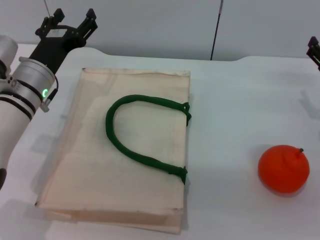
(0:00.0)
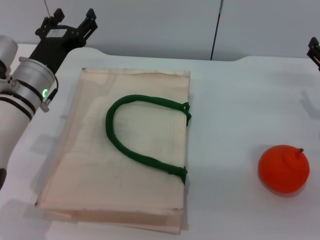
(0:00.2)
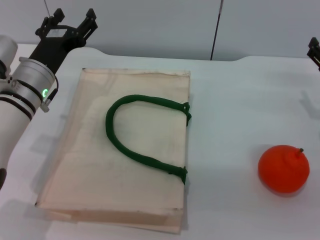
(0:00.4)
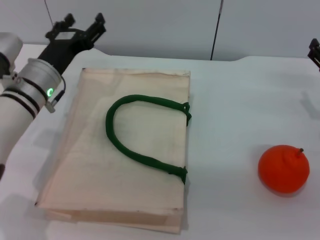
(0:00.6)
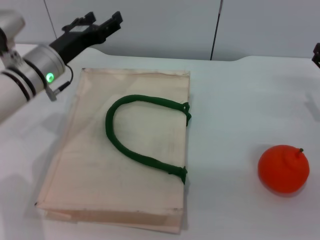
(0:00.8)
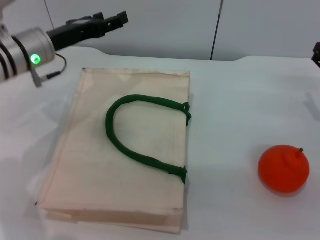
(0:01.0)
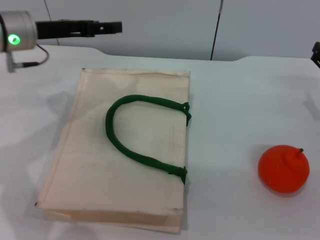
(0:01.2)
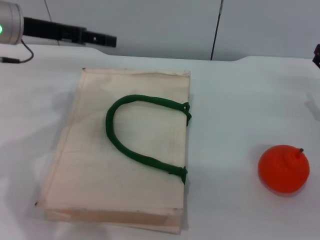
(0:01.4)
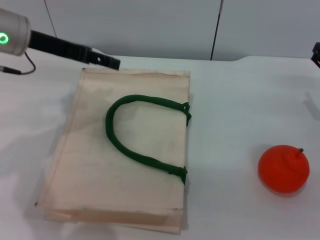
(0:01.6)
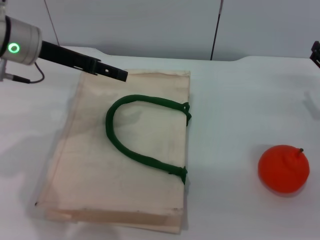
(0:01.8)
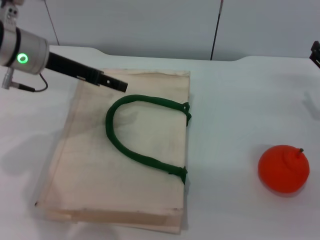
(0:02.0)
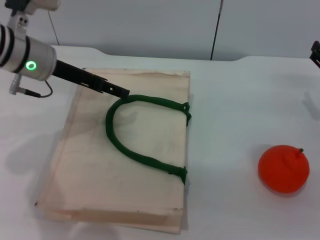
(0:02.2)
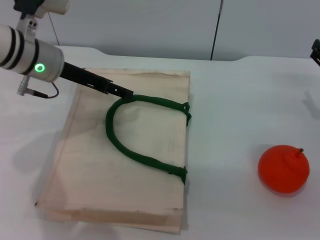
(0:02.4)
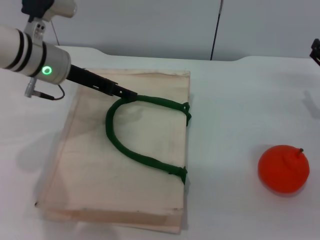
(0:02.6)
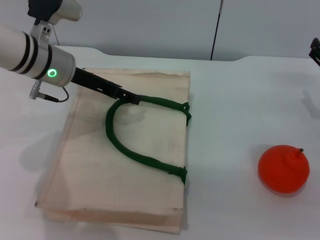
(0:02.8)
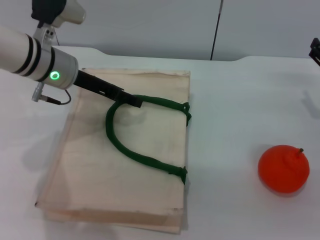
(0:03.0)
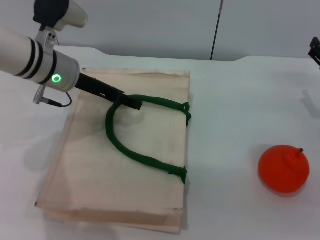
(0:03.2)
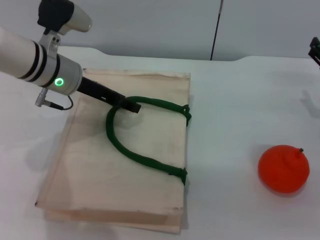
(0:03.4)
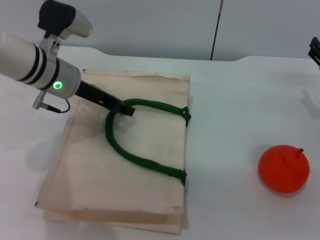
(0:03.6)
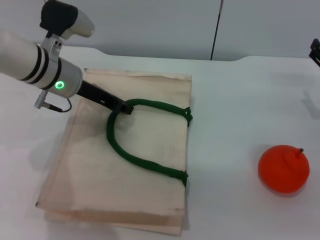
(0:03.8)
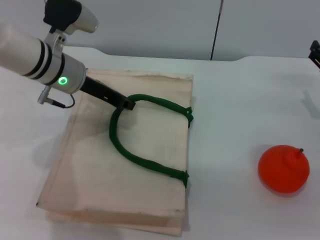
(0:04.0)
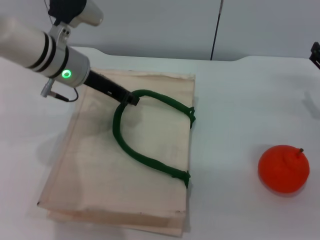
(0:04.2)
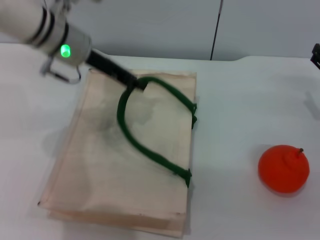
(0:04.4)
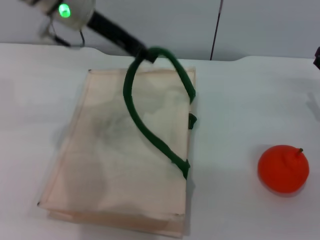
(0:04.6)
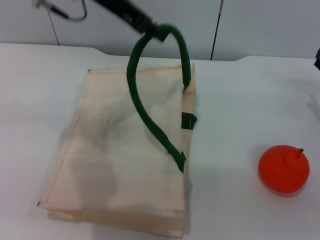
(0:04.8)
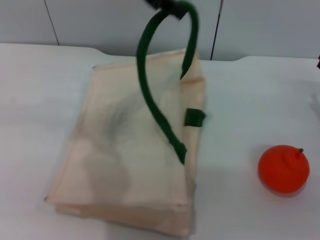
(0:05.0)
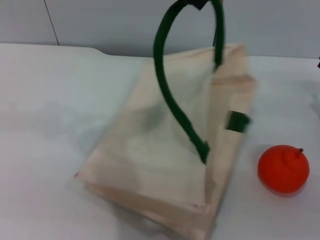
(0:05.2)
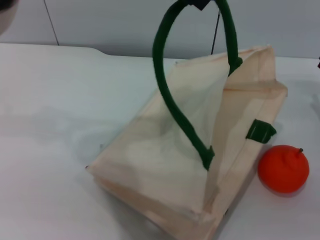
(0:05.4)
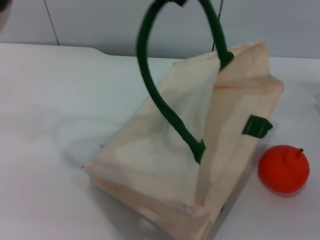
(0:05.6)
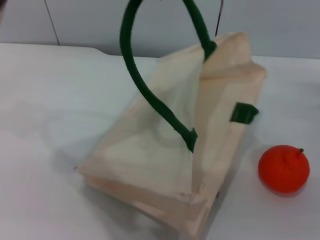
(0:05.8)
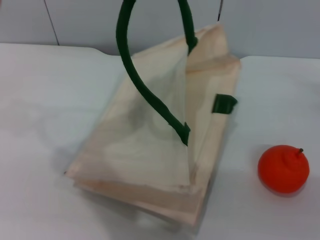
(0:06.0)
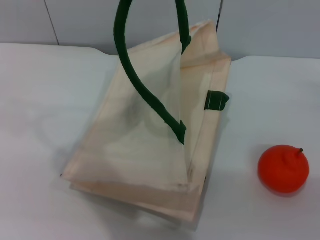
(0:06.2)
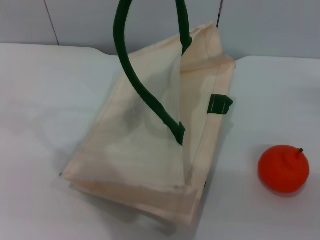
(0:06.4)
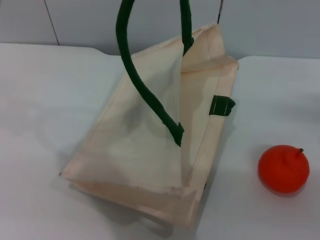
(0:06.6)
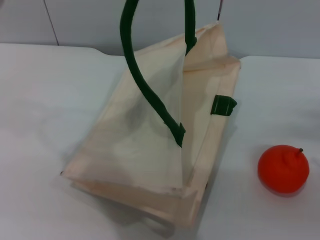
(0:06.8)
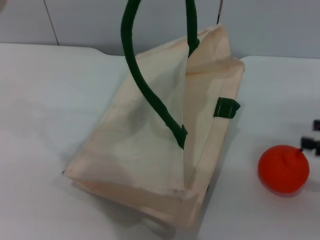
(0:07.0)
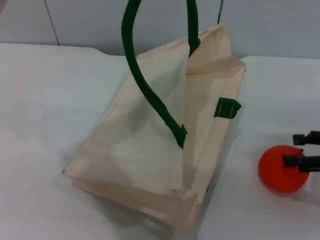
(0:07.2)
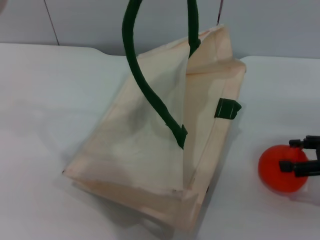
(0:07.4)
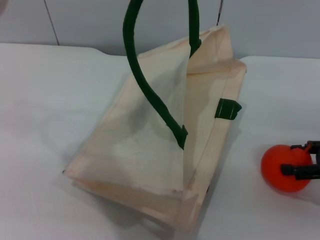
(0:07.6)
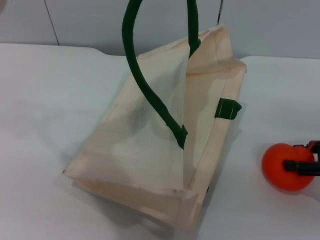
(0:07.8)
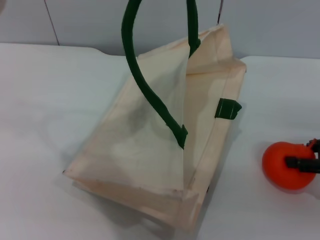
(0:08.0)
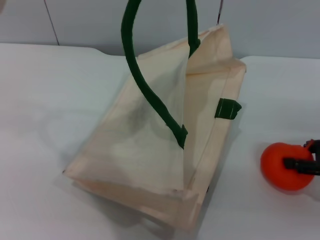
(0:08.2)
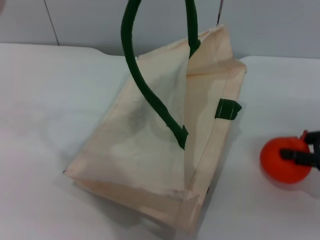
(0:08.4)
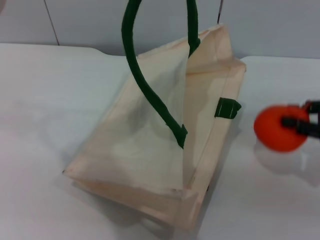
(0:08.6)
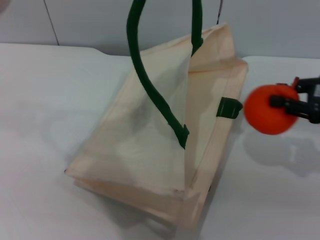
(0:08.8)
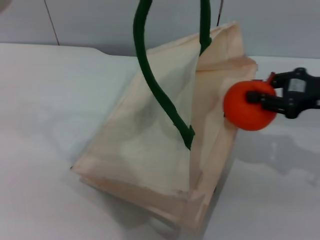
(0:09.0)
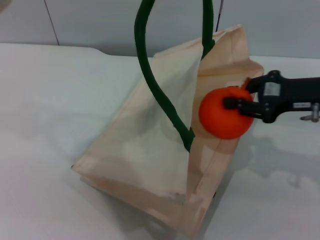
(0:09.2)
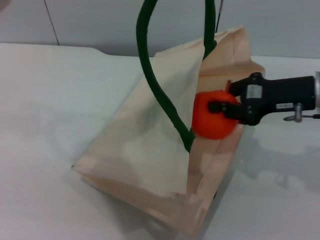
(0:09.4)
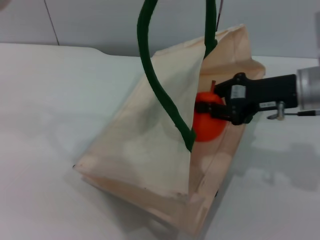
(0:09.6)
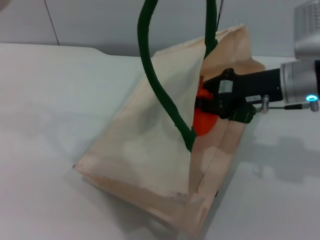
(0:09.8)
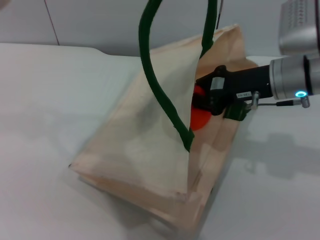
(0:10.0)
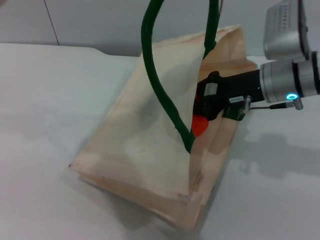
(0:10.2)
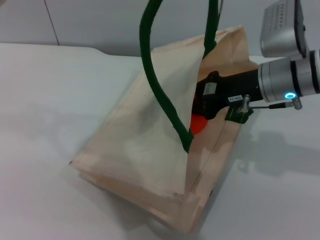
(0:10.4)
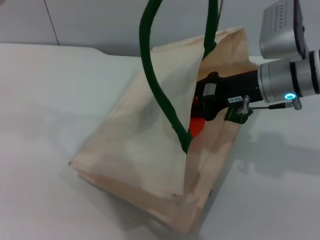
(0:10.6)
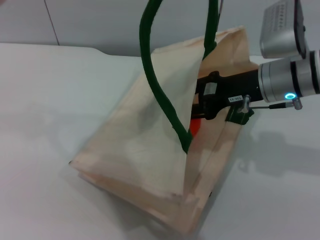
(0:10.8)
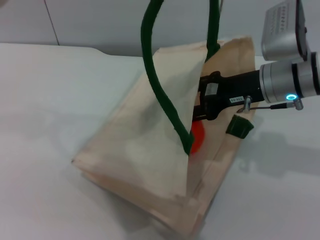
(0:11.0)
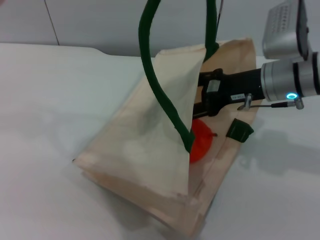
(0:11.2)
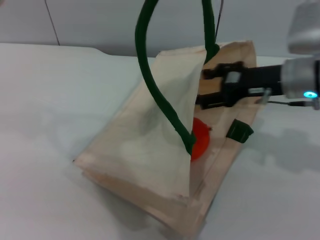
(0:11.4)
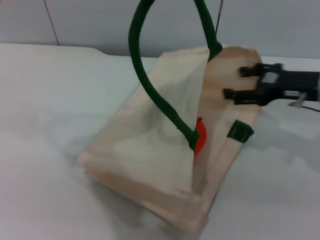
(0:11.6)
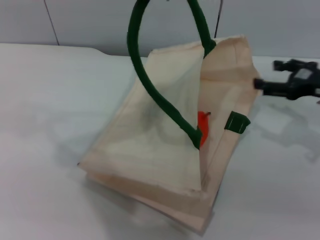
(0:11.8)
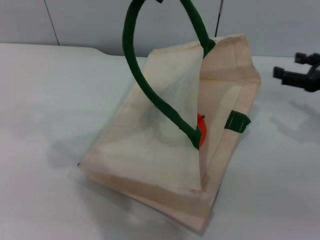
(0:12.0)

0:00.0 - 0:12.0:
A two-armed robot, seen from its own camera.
Task of the whole recording: pick up the orange from the table and place it in the white handbag.
Step, 0:00.0 - 0:05.6: Lift the woven bag with the left gripper to open it.
Step, 0:05.8 - 0:08.6: Pick up the orange with the right gripper.
Step, 0:08.8 - 0:11.6: Place the orange into the woven bag with the right gripper.
0:00.0 - 0:01.6: The left gripper is displaced upward by roughly 10 cm.
0:01.6 - 0:03.0: The left gripper heads downward and to the right, covering some 10 cm.
0:03.0 - 0:04.4: The left gripper shifts by roughly 5 cm, and closes.
0:04.4 - 0:06.0: The left gripper is displaced upward by about 20 cm. Meanwhile the right gripper shifts some 5 cm to the right.
0:07.6 - 0:09.0: The right gripper is displaced to the left and upward by approximately 10 cm, and closes.
0:09.0 - 0:10.4: The right gripper moves to the left, about 10 cm.
0:10.4 - 0:12.0: The left gripper changes place by about 5 cm. Meanwhile the right gripper heads to the right, covering approximately 15 cm, and opens its fingers.

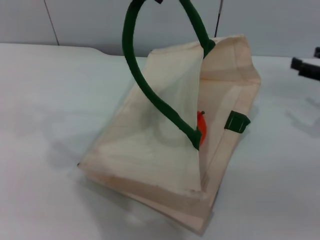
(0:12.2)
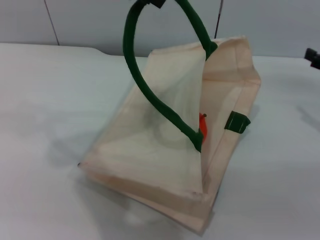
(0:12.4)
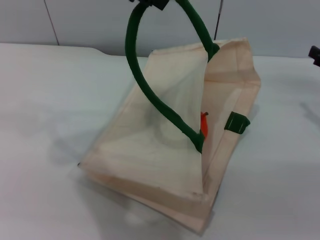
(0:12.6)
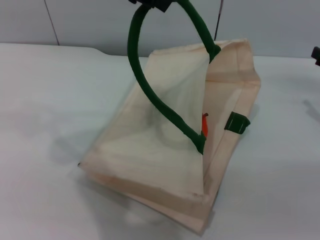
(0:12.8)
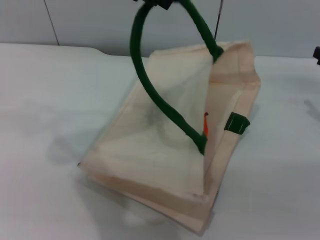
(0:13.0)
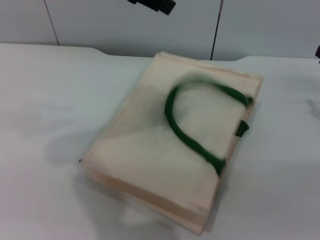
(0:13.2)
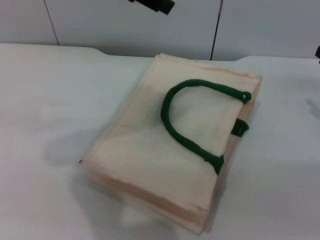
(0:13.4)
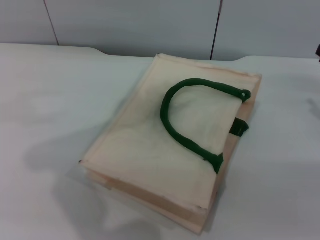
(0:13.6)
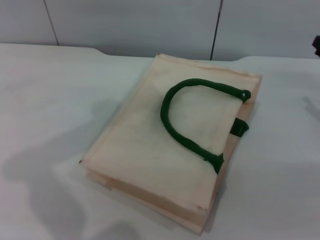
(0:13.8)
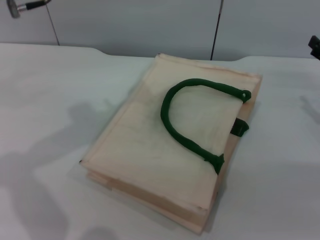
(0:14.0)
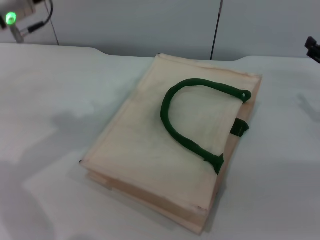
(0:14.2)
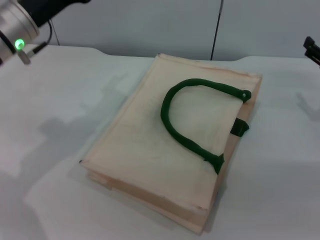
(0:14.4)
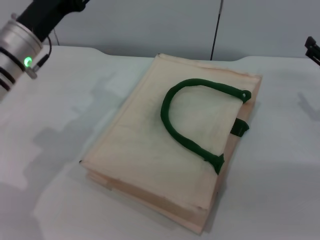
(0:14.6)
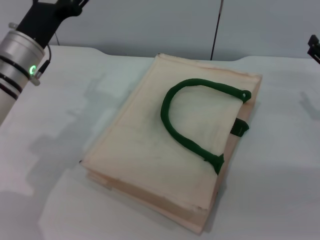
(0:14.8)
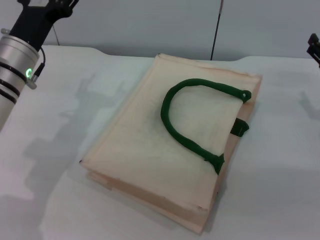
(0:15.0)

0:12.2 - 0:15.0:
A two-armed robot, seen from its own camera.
Task of the whole recording: pick up the orange from the table and place it in the white handbag.
Step, 0:12.2 - 0:13.2: Lower the woven bag with the left gripper to close it.
0:12.2 - 0:13.6: The left gripper opens.
0:13.6 - 0:15.0: The left gripper heads downward, covering roughly 20 cm; the right gripper is displaced to the left by approximately 5 cm.

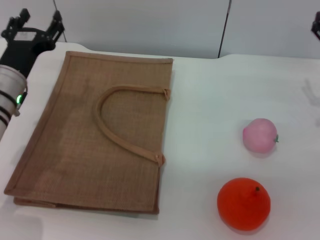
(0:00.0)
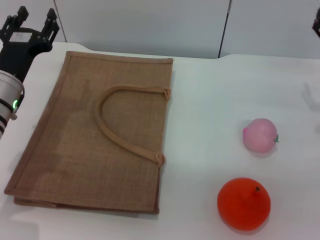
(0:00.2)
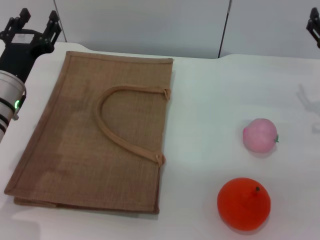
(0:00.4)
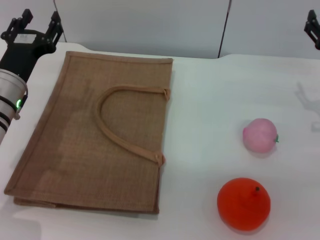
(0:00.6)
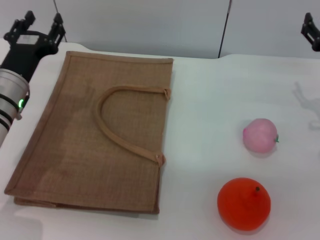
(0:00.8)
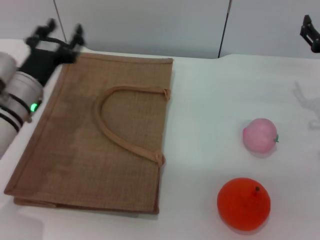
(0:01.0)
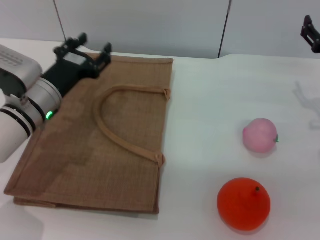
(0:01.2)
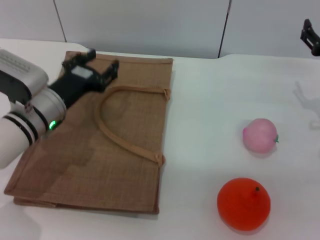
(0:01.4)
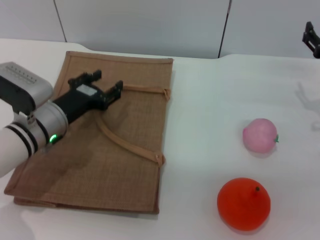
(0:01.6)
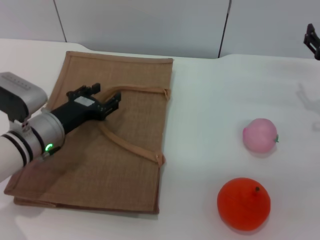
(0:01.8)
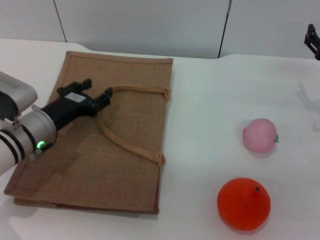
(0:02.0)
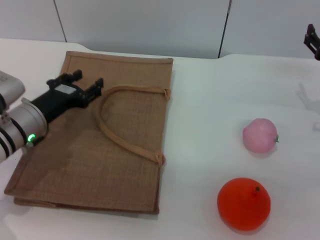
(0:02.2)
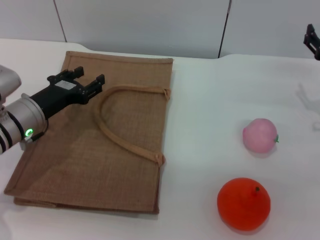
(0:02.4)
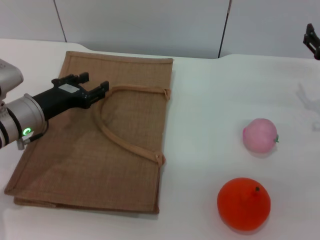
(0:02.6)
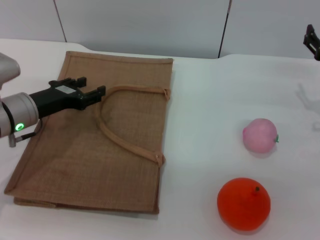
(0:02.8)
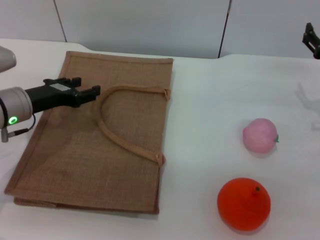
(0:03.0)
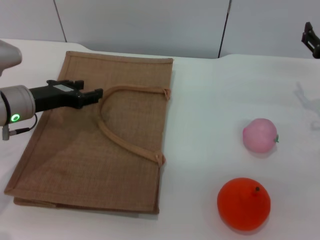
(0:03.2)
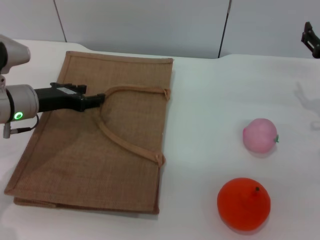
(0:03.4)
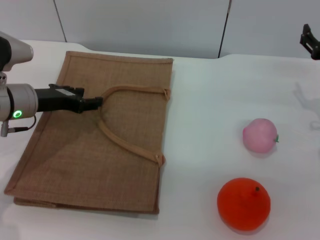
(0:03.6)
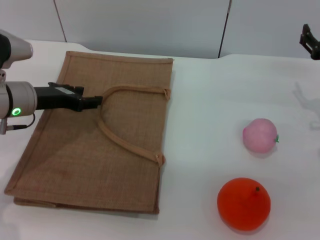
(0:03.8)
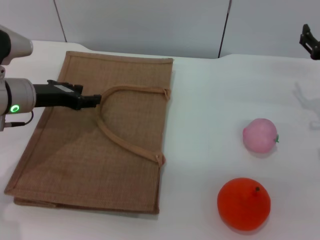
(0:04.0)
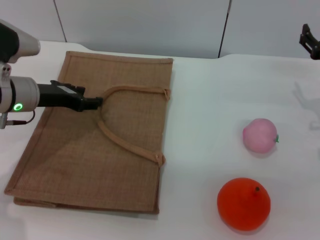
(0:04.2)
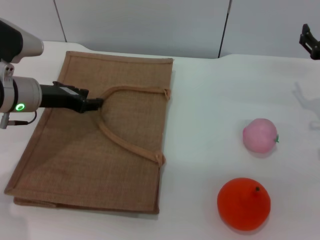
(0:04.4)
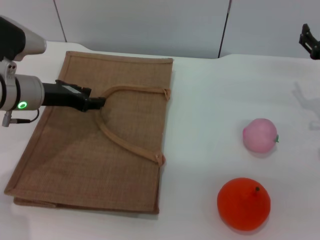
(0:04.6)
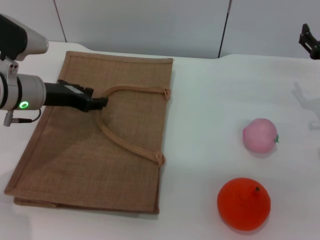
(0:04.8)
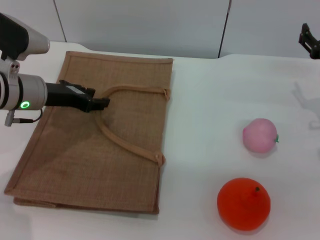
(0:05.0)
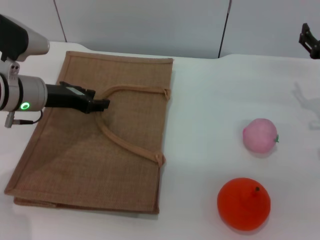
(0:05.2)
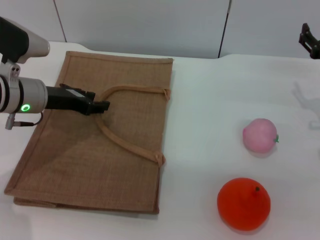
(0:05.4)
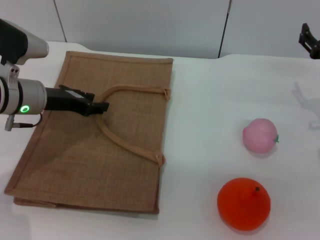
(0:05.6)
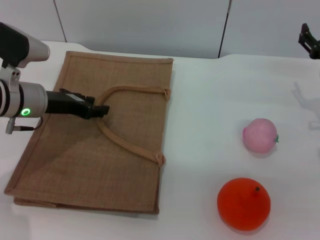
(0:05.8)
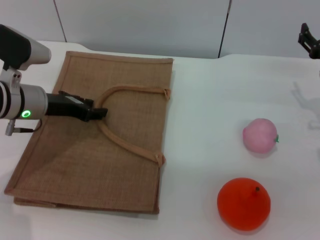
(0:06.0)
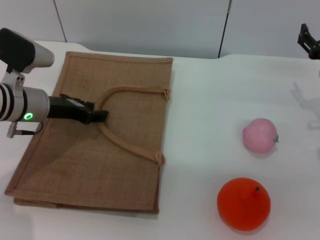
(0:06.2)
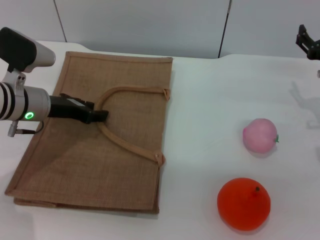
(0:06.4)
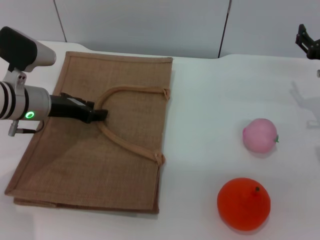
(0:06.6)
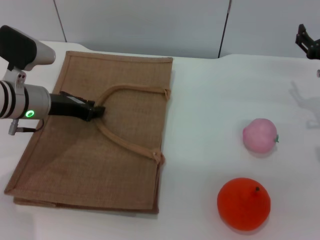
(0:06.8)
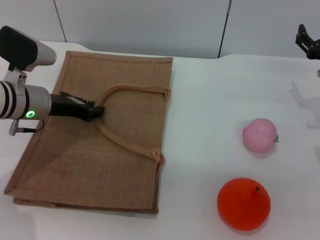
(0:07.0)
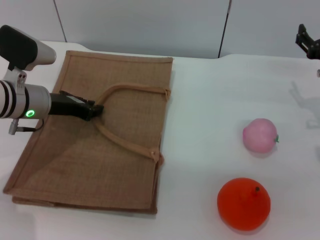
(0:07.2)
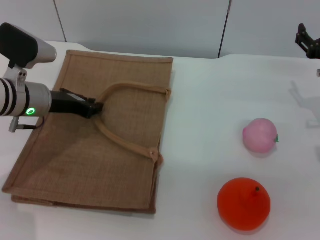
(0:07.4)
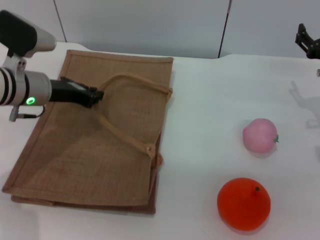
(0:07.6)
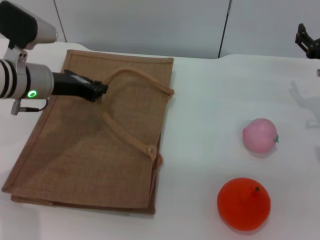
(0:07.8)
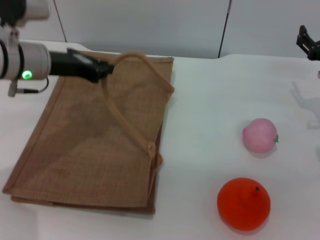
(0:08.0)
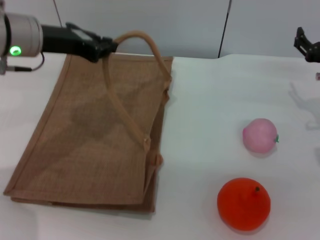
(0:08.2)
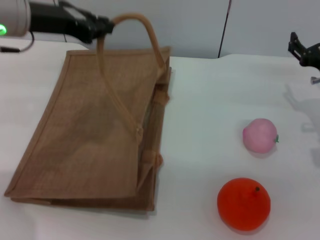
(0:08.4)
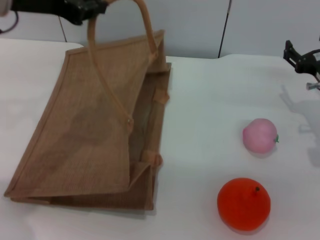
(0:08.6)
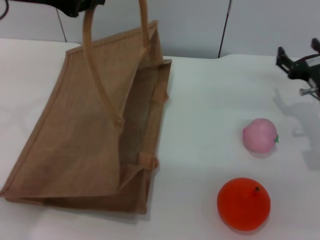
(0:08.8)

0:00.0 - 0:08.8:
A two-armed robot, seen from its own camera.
Task of the whole recording: pick up the orange and peach from the table and place it in the brown handbag.
0:01.4 - 0:03.0: The left gripper is displaced to the left by about 5 cm.
0:03.0 - 0:04.4: The grippers stay close to where they were, moving slightly.
0:04.4 - 0:05.8: The two grippers keep their place.
0:05.8 - 0:07.4: The left gripper closes up.
0:07.4 - 0:08.8: The left gripper travels upward by roughly 20 cm.
